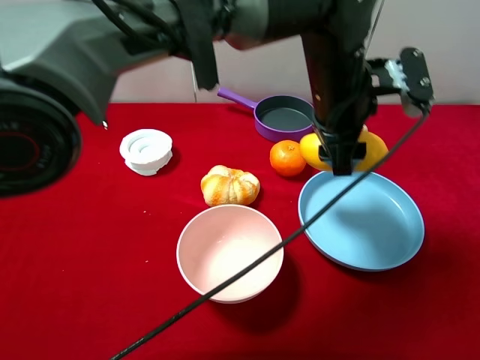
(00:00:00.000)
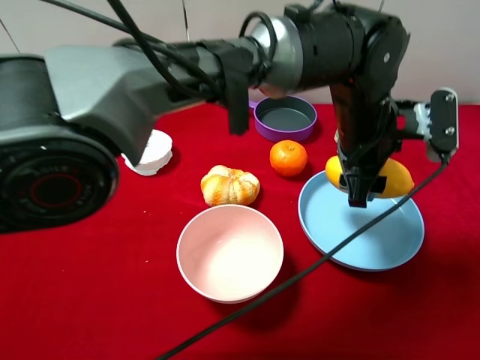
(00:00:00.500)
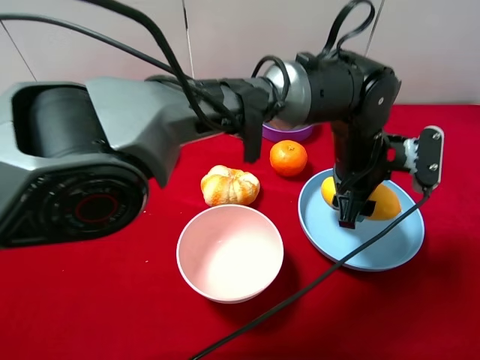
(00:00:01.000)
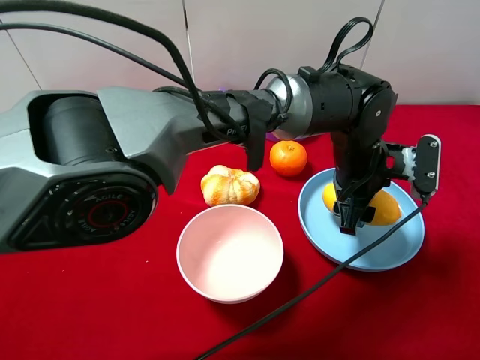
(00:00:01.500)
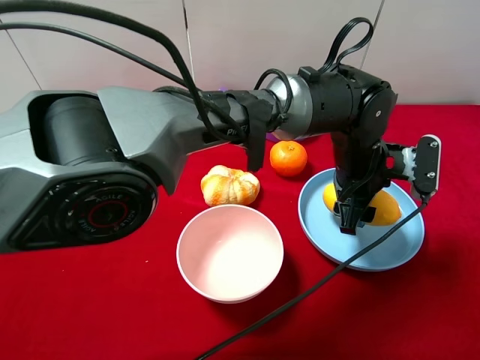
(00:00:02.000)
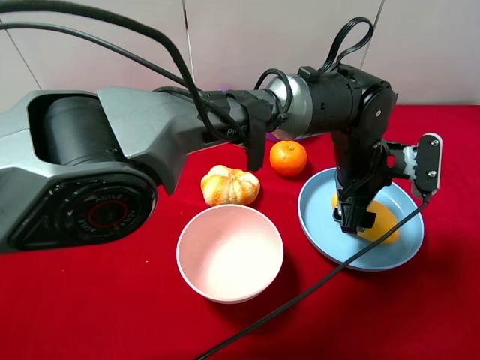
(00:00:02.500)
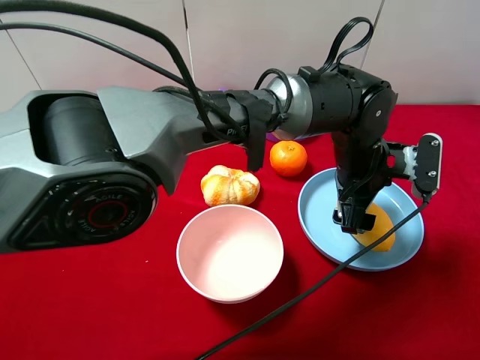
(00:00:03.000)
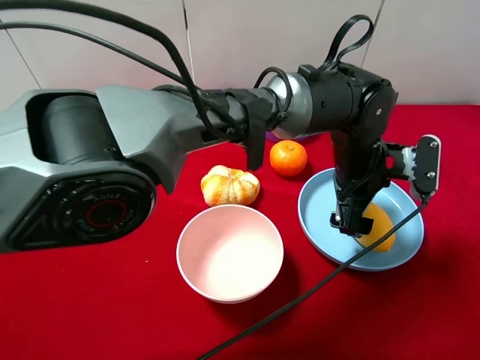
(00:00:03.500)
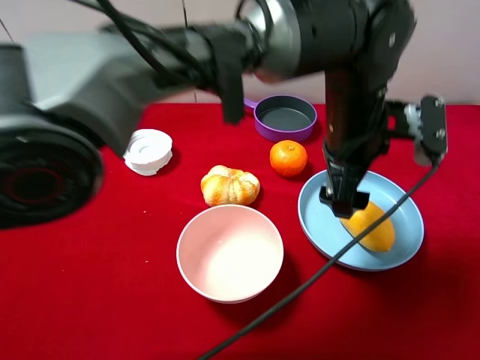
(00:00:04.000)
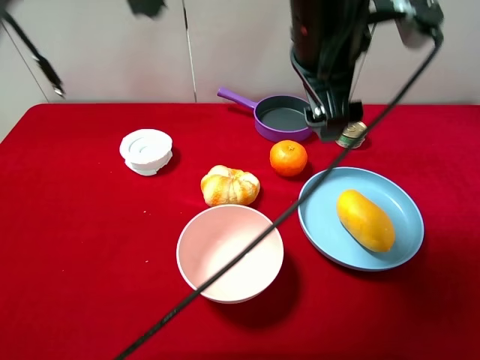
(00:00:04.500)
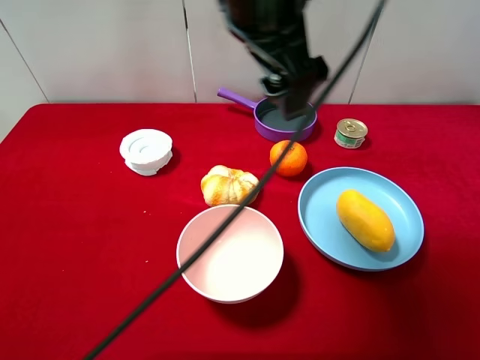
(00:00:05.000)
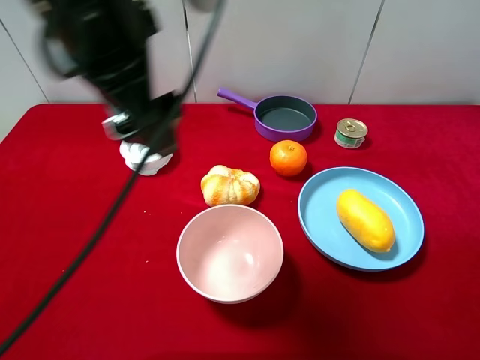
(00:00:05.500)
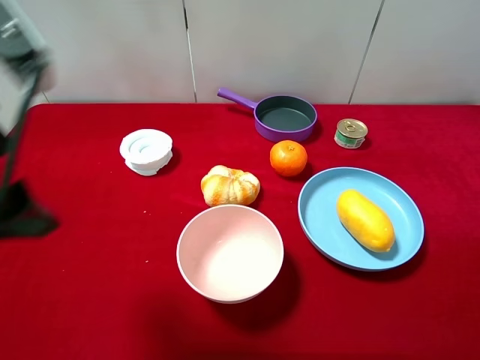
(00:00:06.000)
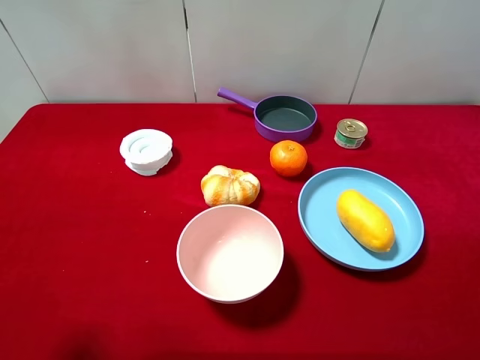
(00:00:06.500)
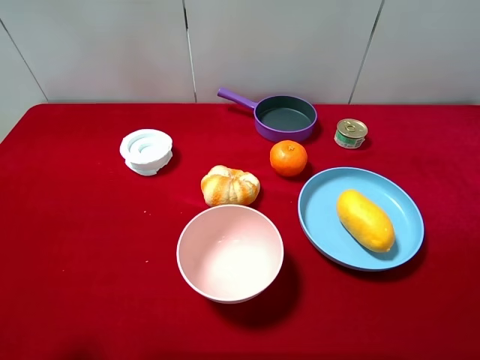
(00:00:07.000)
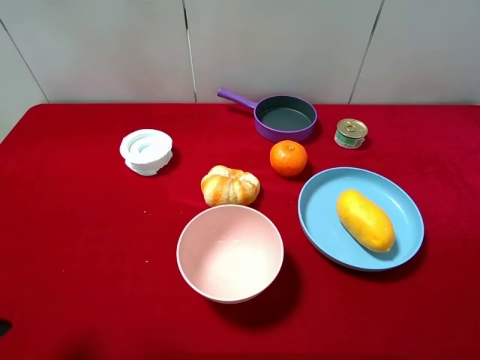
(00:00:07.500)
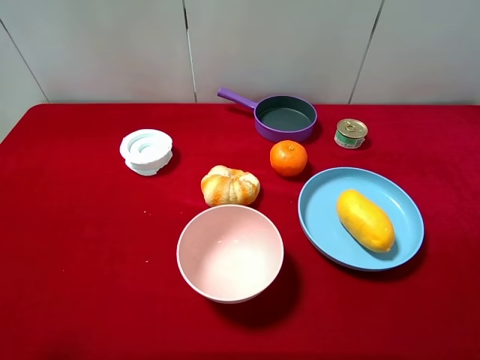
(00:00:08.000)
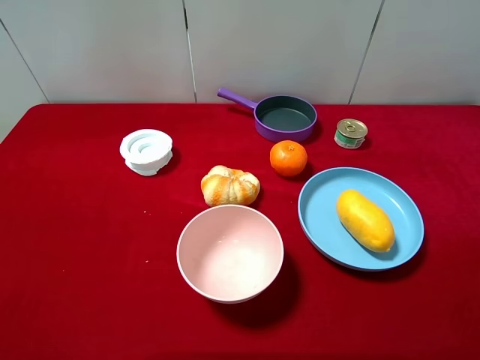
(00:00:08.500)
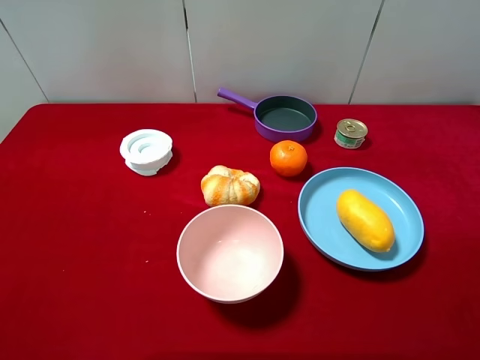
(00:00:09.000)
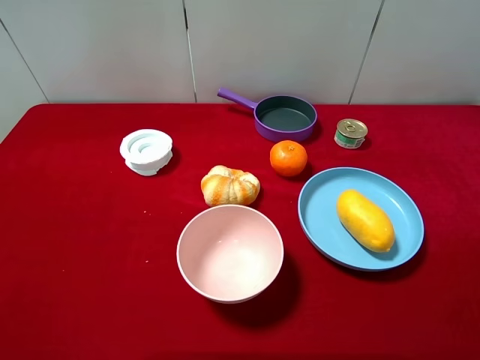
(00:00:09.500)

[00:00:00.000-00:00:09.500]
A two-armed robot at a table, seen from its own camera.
Task of the whole recording: pick up an item with a gripper and place it in a random container on the desktop.
00:00:00.000 to 00:00:02.000: The left gripper travels downward by approximately 10 cm.
00:00:02.000 to 00:00:04.000: The left gripper travels upward by some 10 cm, and opens up.
00:00:04.000 to 00:00:05.500: The left gripper travels to the left and upward by approximately 25 cm.
00:00:05.500 to 00:00:07.500: The left gripper heads to the left, backward and downward, covering some 25 cm.
